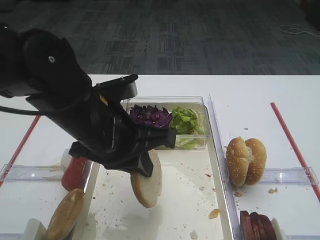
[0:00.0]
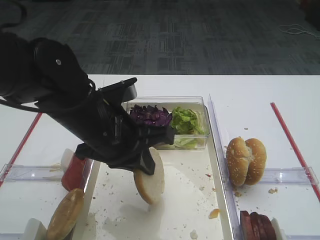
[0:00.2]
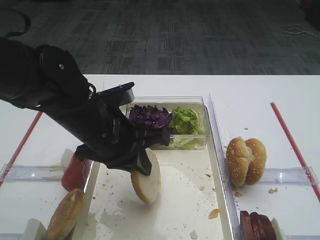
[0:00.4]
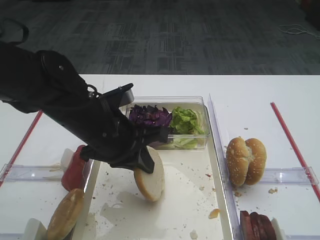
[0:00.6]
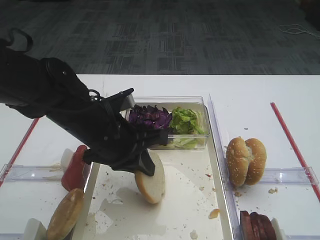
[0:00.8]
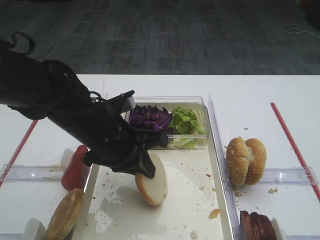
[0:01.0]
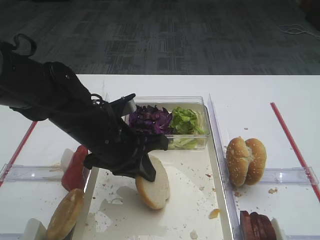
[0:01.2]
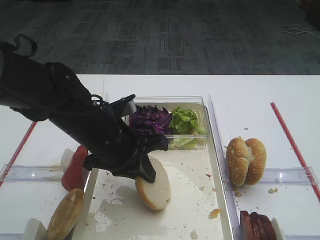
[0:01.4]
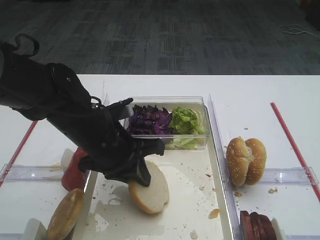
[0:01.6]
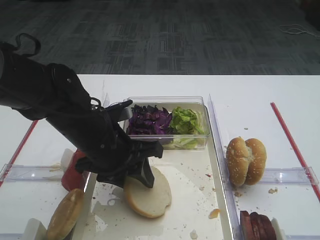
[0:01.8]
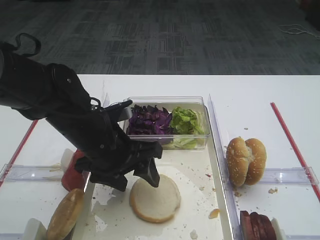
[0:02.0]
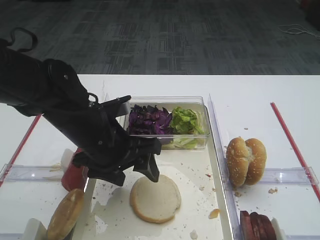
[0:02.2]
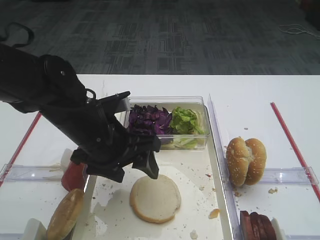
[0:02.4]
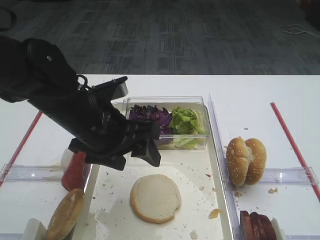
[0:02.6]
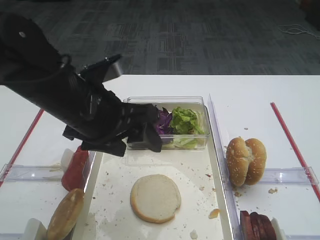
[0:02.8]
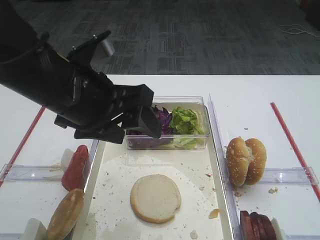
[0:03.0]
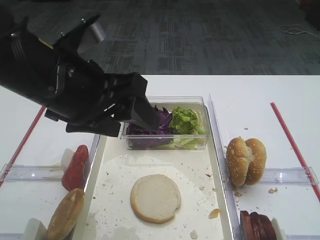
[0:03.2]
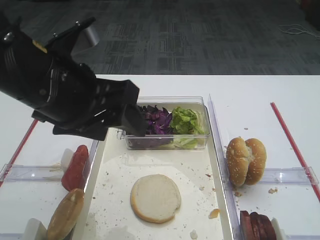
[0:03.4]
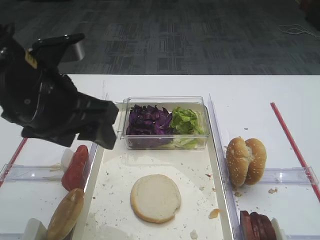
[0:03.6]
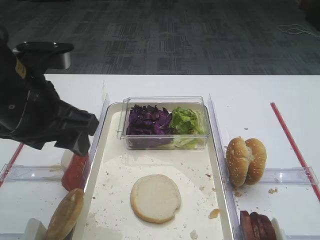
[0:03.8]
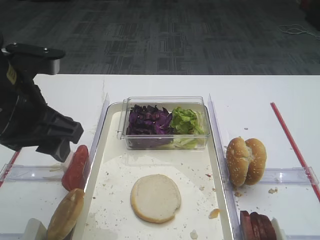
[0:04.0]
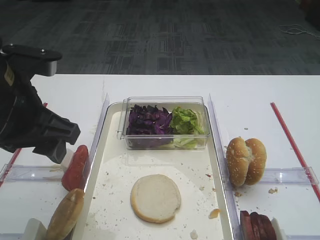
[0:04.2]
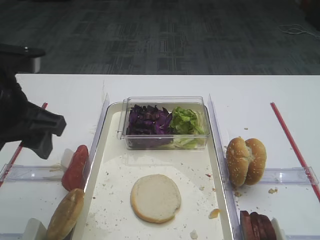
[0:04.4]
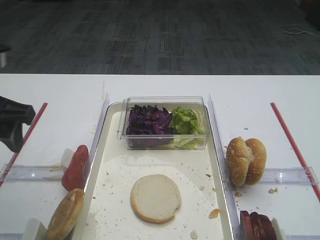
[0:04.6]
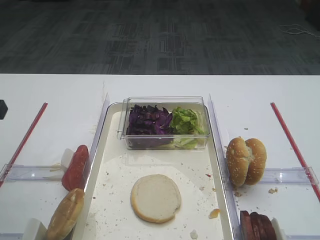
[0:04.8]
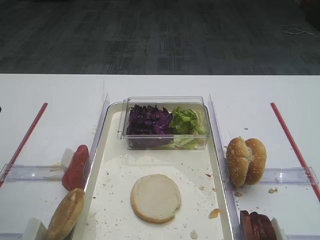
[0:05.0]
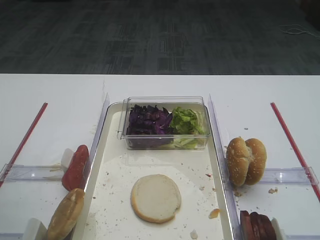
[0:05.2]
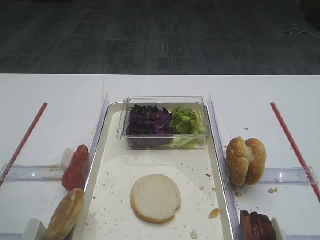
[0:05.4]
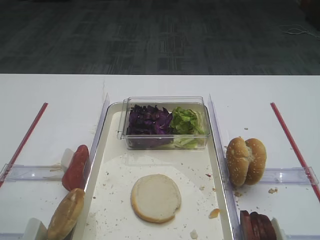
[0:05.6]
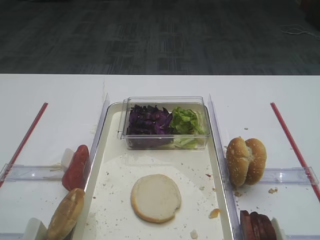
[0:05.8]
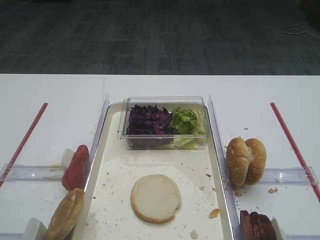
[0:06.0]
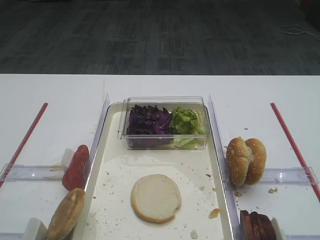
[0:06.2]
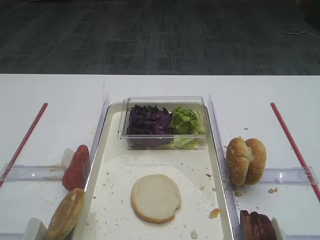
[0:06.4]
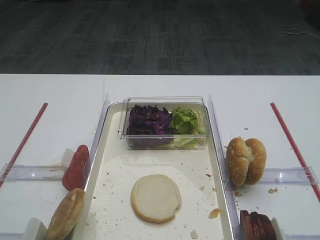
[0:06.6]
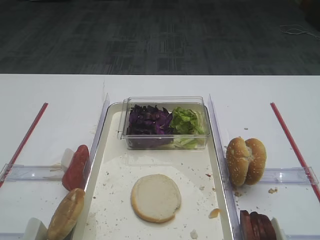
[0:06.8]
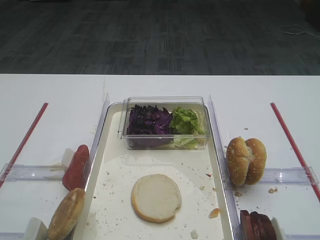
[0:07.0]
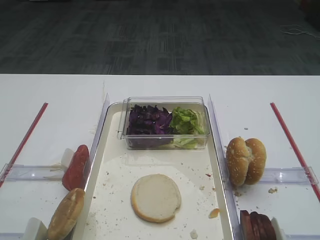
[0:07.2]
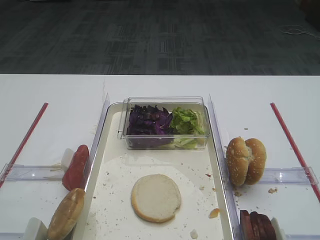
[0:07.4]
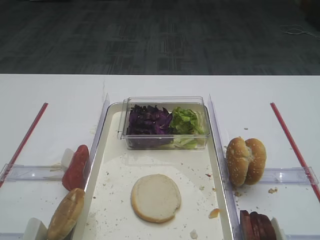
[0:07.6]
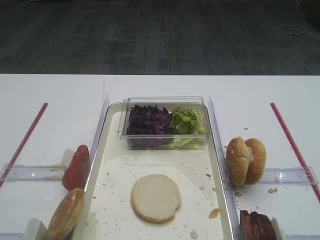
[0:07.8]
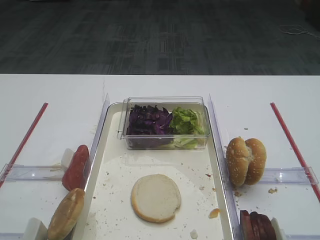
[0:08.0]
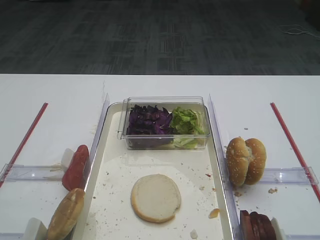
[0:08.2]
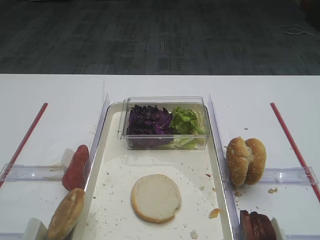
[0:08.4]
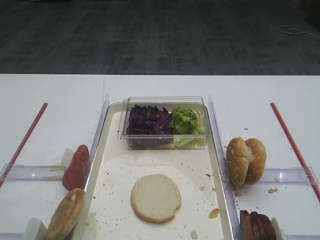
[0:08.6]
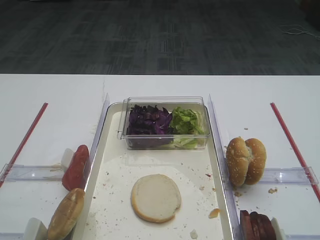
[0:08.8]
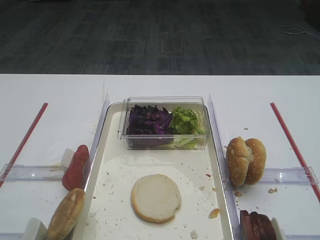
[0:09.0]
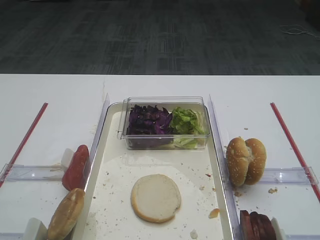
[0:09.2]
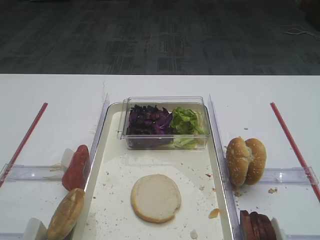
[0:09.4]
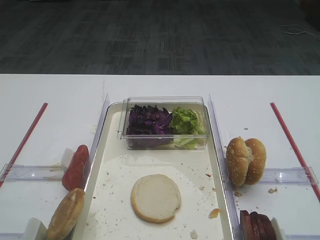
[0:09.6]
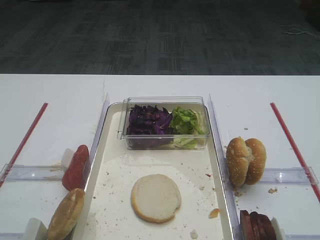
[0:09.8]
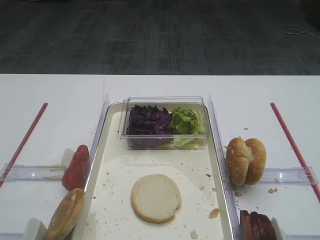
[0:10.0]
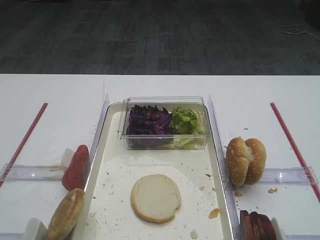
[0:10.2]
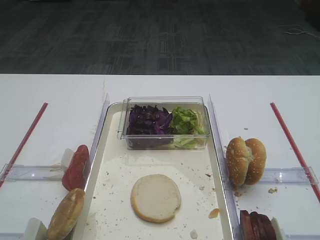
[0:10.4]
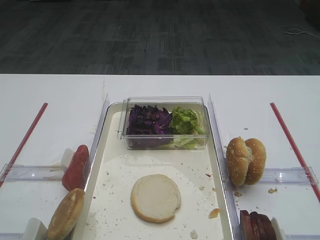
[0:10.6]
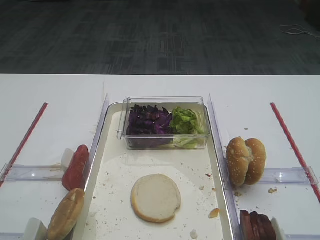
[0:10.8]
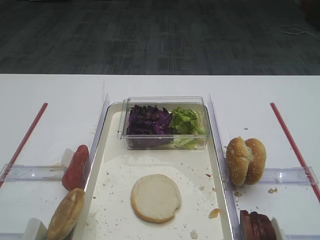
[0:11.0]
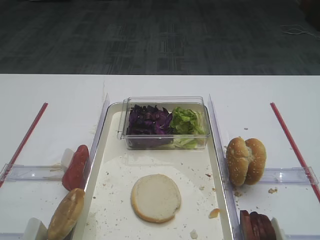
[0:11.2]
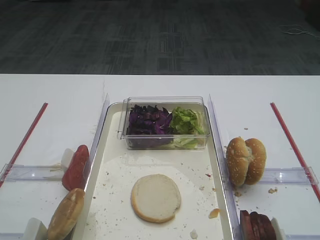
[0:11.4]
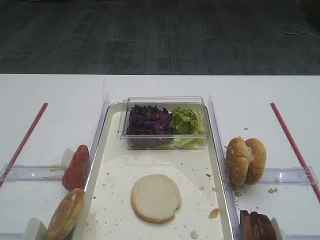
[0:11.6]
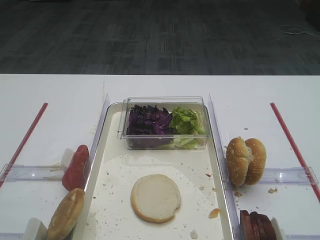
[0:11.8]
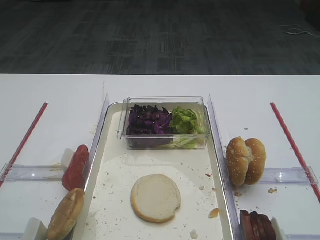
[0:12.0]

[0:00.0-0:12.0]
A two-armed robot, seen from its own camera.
Step, 0:00.0 to 0:02.4: Place the bread slice on the tray with the left gripper.
0:00.0 to 0:01.6: The left gripper goes roughly 5 cm downward.
0:01.6 to 0:03.0: The left gripper is displaced upward by about 10 cm, and opens up.
0:03.0 to 0:04.4: The left gripper goes approximately 10 cm to the left.
0:04.4 to 0:06.0: The left gripper moves backward and to the left, approximately 20 cm.
0:07.6 to 0:12.0: Both grippers stay about where they are.

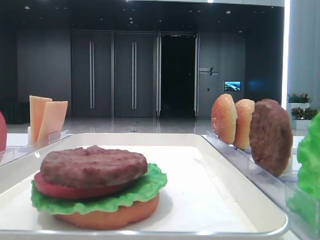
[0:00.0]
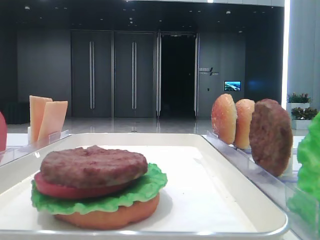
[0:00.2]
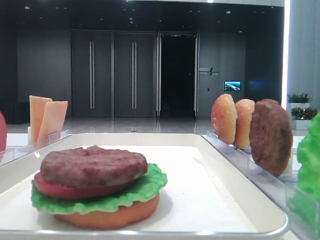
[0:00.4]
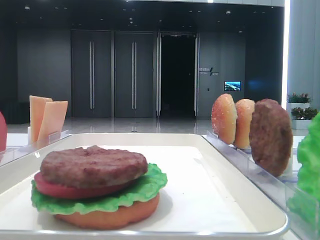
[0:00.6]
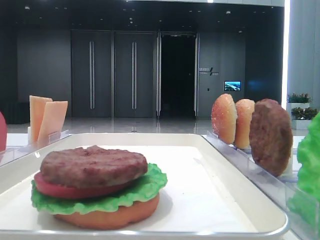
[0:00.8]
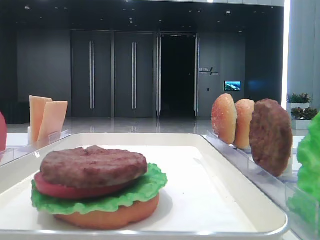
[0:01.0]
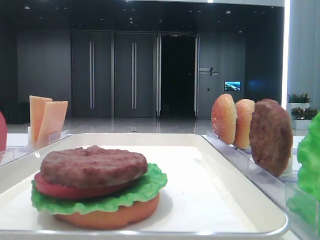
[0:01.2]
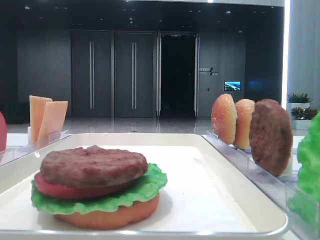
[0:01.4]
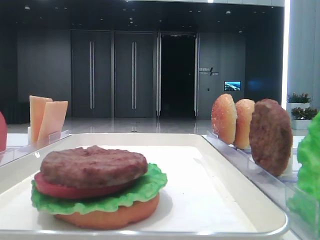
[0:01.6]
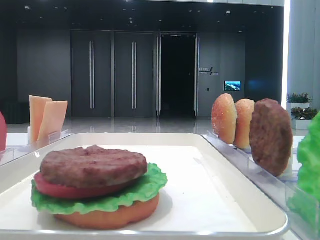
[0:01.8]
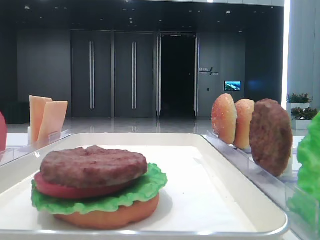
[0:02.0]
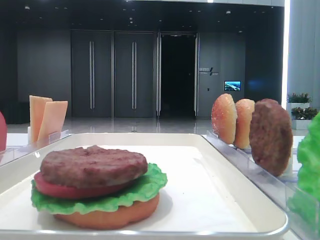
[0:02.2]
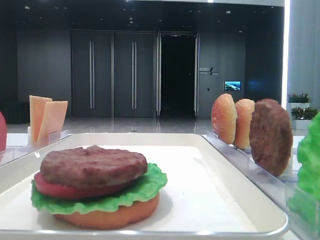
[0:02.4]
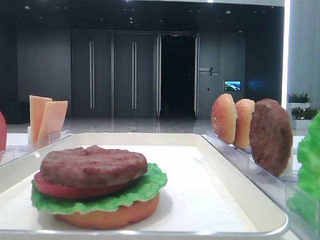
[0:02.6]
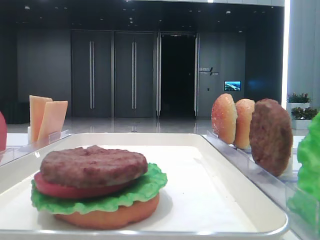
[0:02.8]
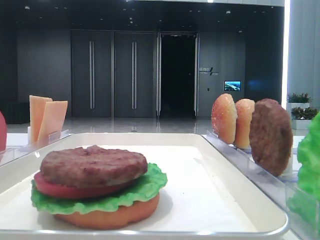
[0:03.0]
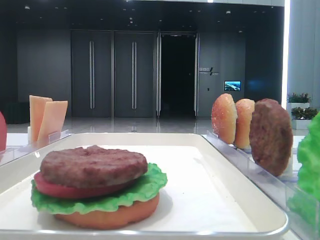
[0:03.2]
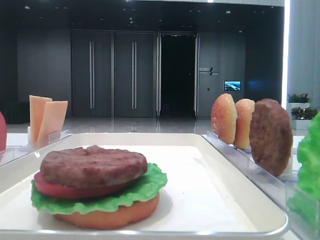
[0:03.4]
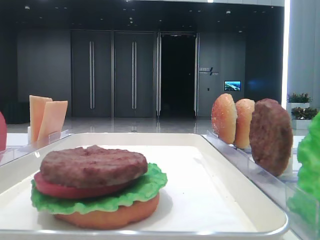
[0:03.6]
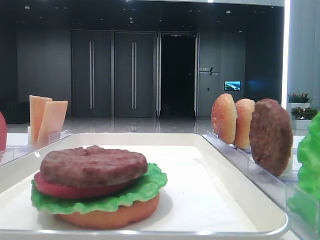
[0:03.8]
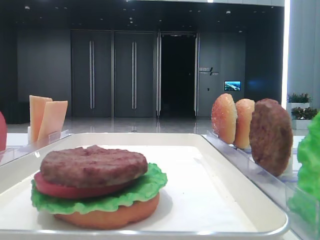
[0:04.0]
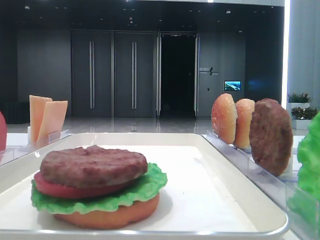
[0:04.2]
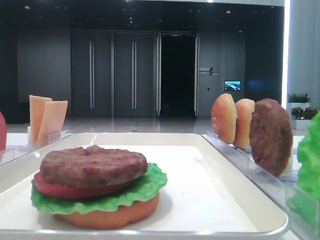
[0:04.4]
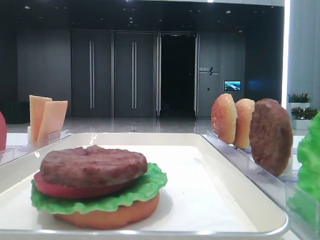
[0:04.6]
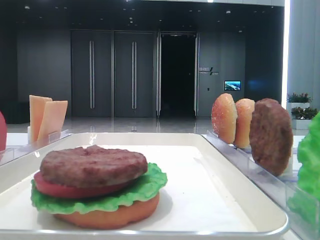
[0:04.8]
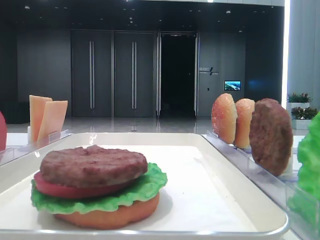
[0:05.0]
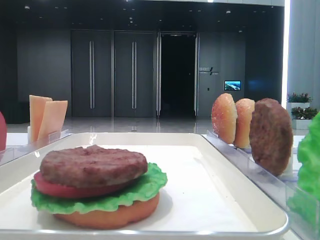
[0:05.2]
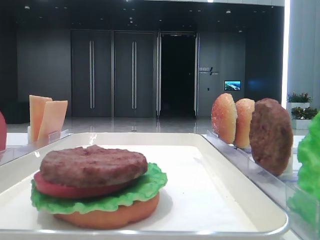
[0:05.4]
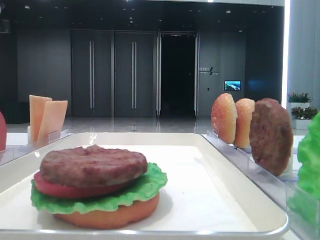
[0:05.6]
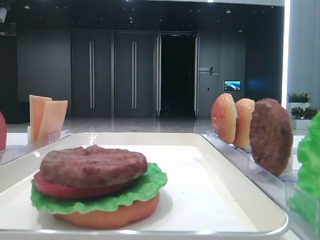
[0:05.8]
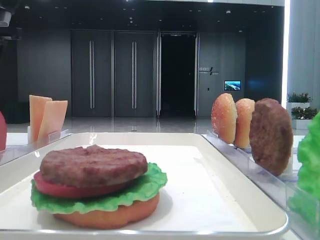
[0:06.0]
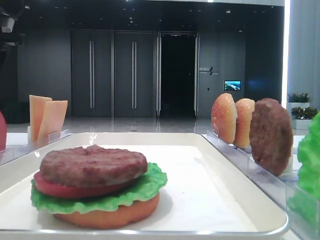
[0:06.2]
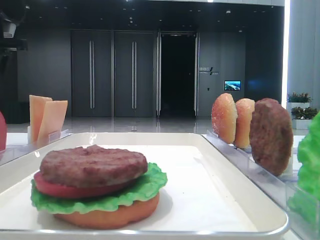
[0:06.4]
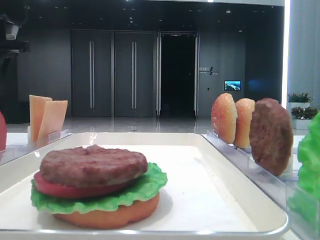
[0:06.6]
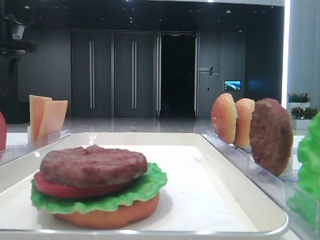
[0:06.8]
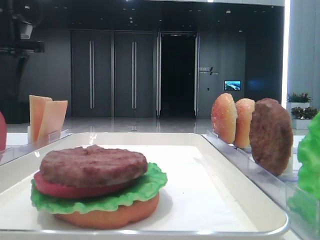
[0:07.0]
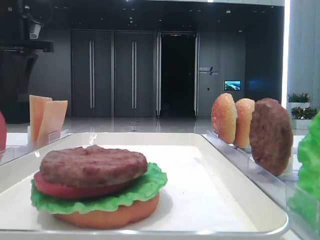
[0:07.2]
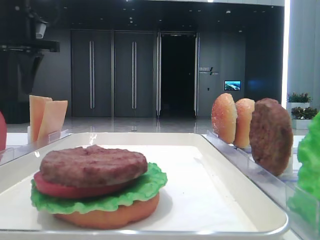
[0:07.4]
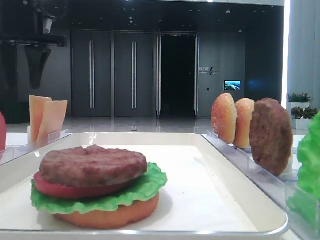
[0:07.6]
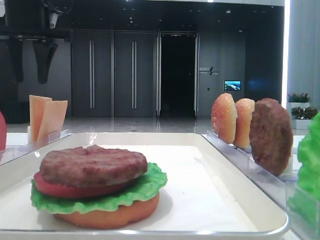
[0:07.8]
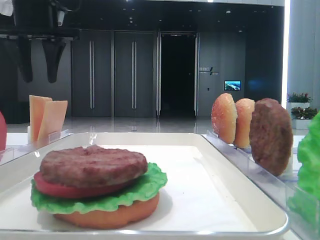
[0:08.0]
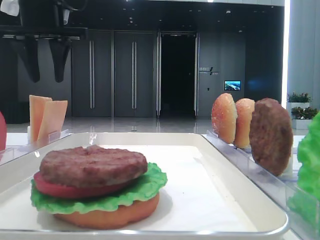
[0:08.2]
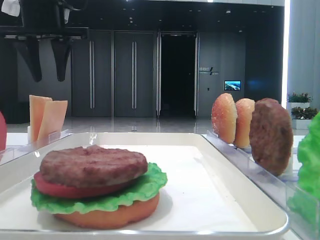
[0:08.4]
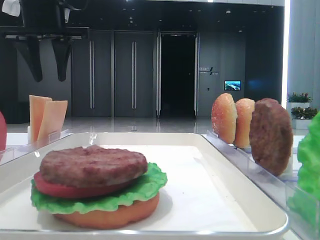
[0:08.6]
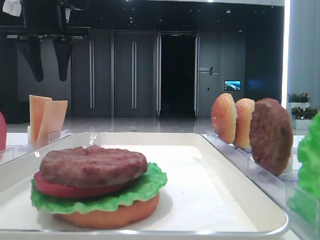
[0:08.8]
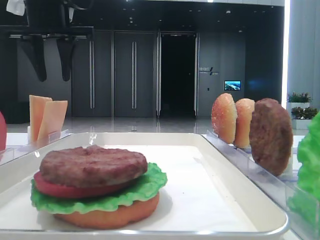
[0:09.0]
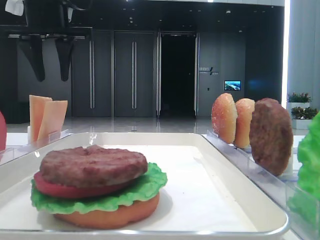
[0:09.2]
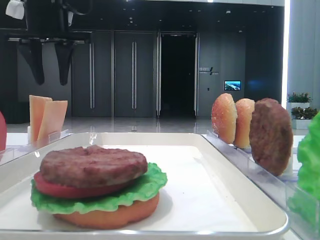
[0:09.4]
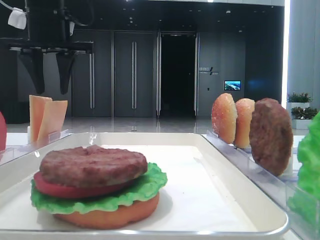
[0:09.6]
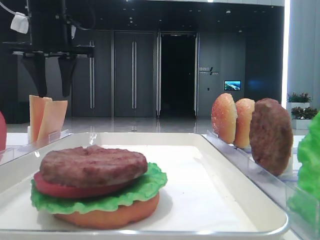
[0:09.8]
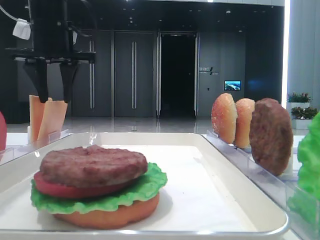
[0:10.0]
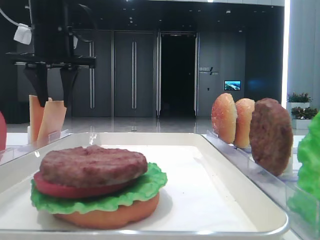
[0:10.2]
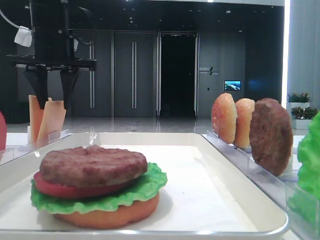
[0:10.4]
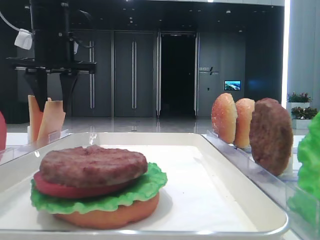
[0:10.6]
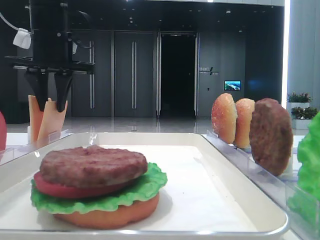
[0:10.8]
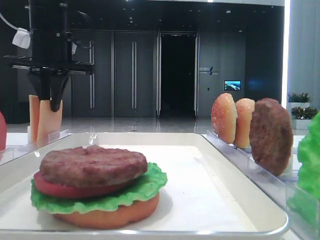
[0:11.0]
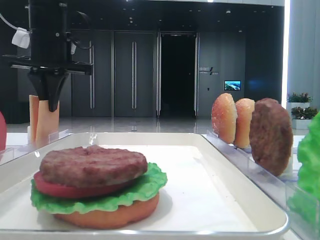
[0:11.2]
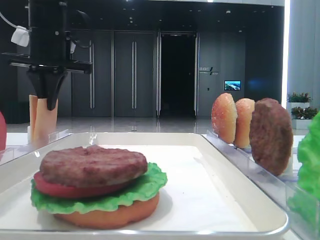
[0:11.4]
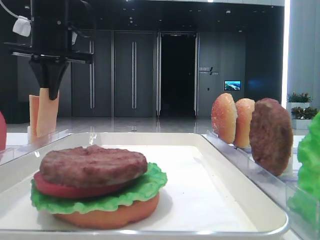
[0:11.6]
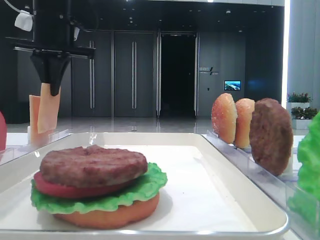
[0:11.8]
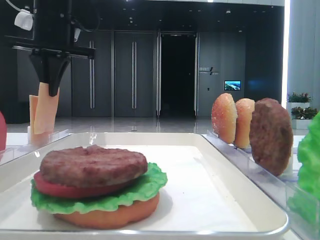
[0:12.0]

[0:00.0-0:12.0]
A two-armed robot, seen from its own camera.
Step, 0:00.0 to 0:11.2: Pick up the cheese slice with the left hand.
0:06.0 to 0:07.6: The left gripper goes about 10 cm to the right.
0:07.6 to 0:09.0: The grippers make only small movements.
0:09.0 to 0:10.4: The left gripper changes place by about 5 cm.
0:10.4 to 0:12.0: The left gripper closes its fingers.
